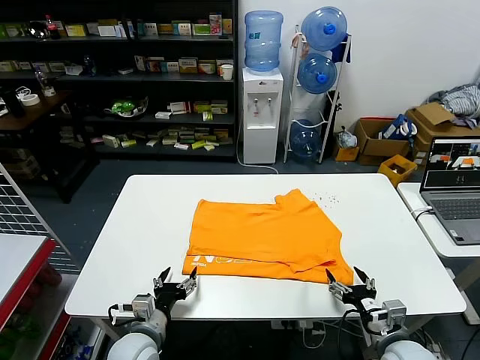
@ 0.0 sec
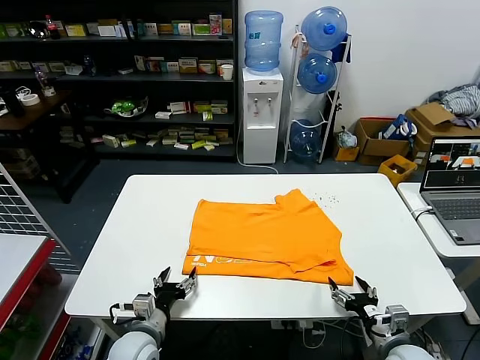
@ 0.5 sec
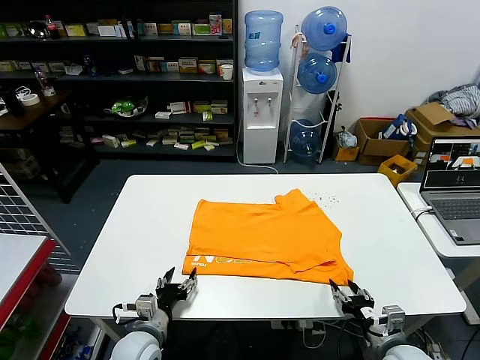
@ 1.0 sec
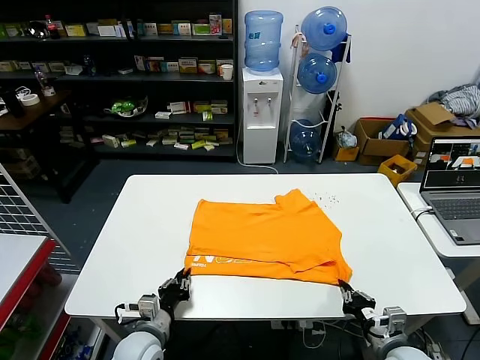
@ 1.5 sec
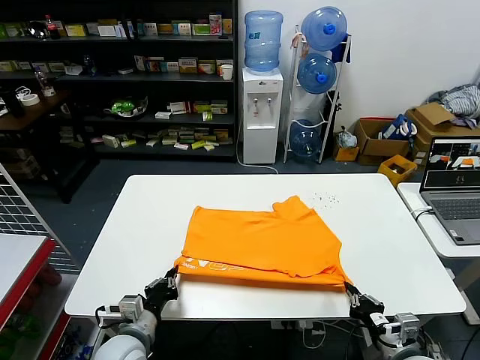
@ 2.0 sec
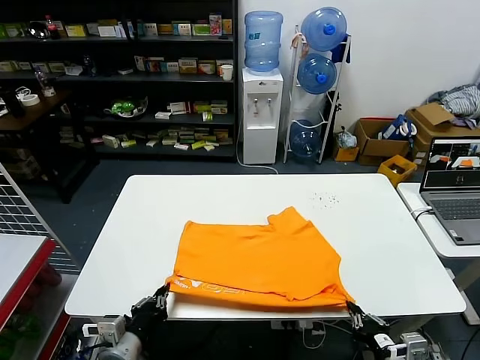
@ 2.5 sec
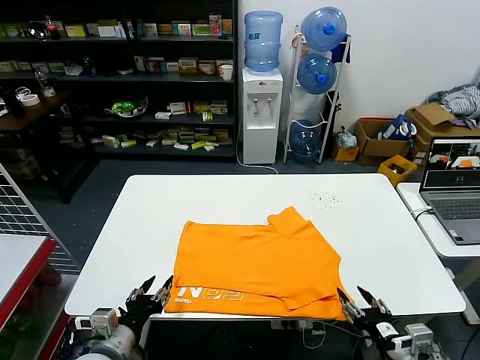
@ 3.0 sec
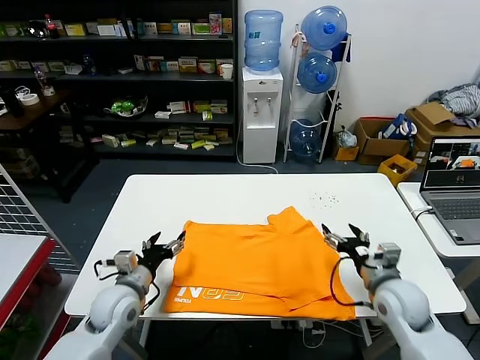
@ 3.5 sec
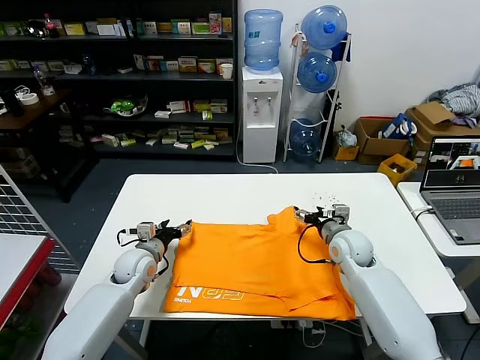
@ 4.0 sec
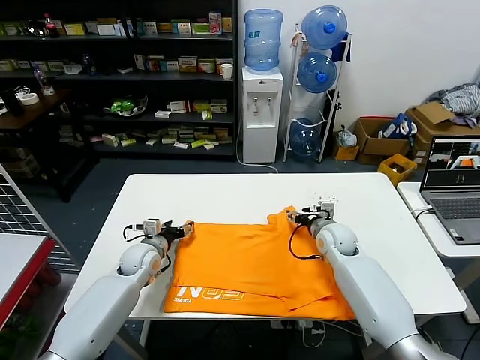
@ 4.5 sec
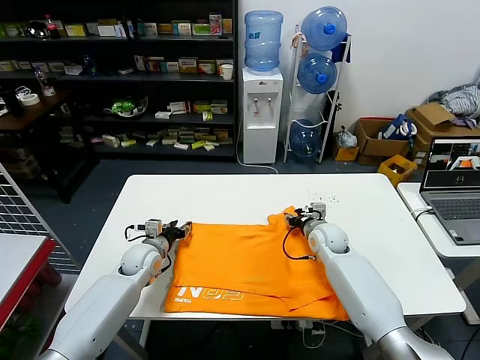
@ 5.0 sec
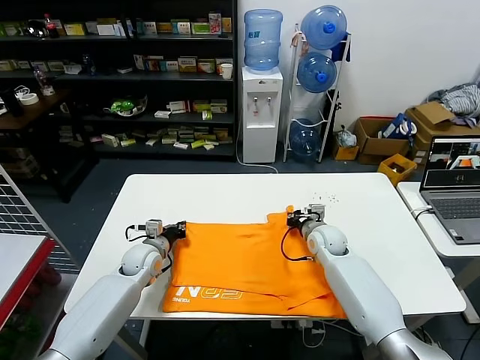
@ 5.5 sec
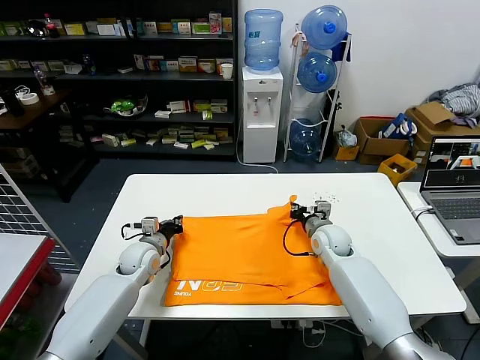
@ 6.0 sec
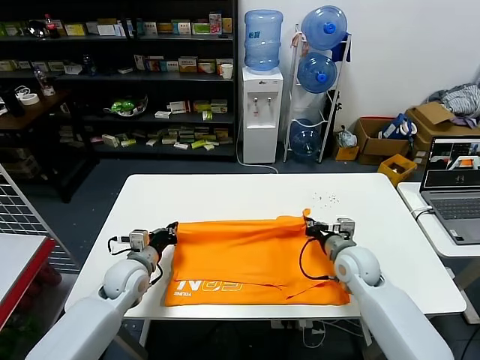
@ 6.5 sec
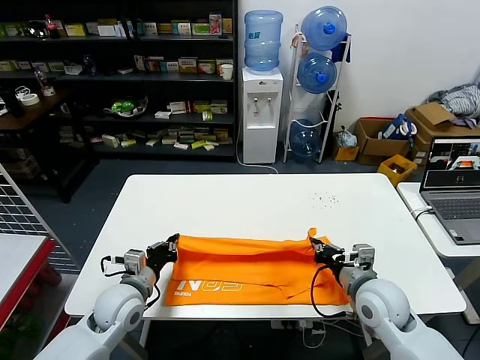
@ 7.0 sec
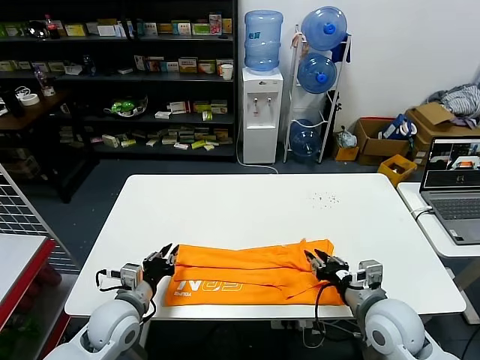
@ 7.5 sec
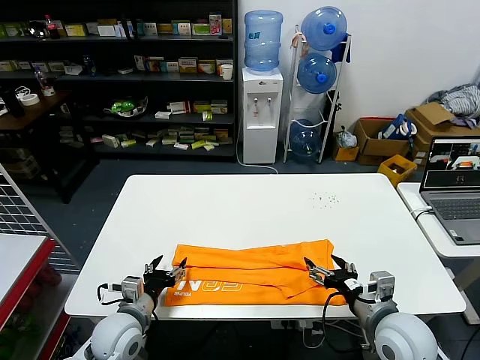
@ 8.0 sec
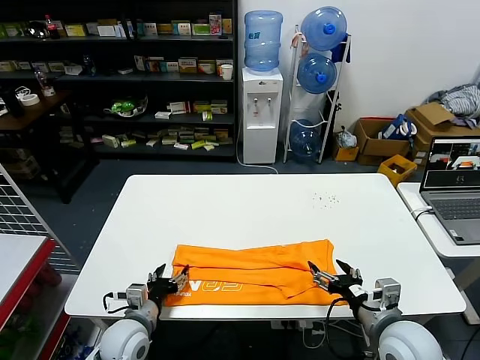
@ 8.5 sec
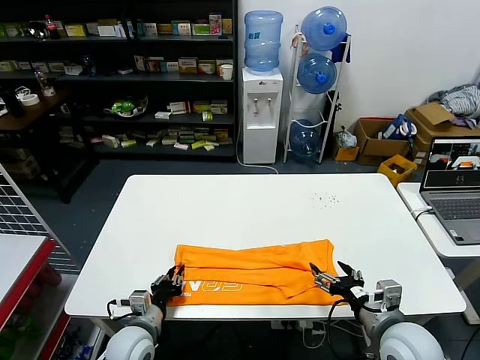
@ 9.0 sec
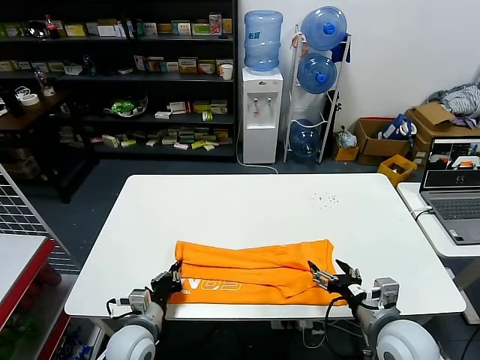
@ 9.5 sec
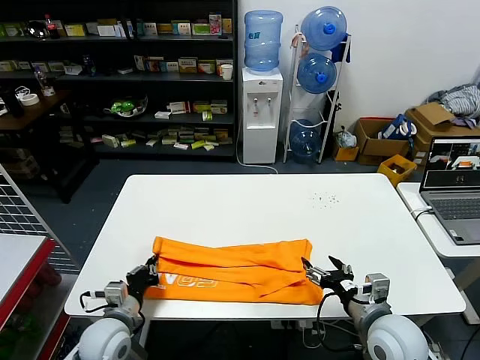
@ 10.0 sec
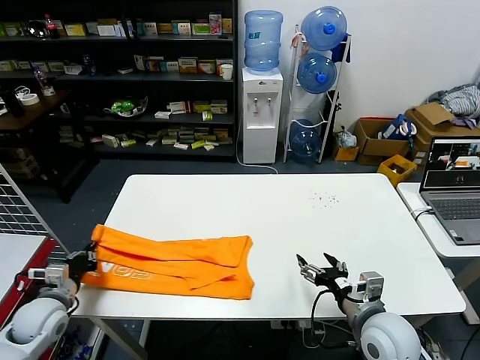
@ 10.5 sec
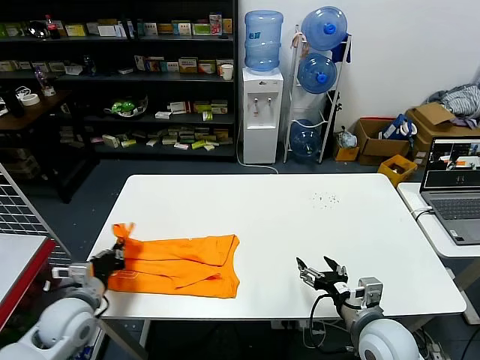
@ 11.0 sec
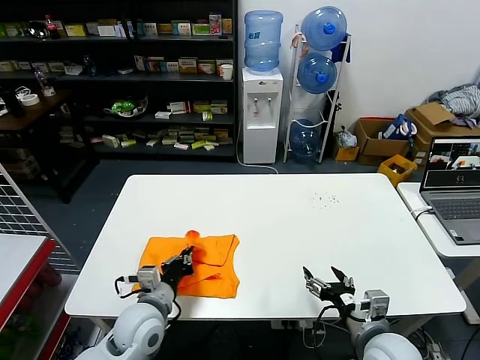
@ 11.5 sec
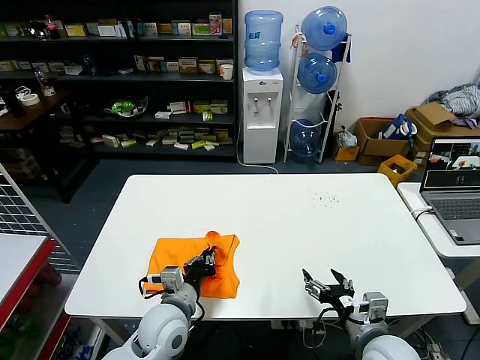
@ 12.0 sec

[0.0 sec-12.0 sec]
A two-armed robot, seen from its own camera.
Task of the whole recording: fold and organize the clothes.
Step, 0.0 sec to 2.5 sec: Drag the clothes downward with both gripper.
Step, 3.0 sec to 5.5 sec: use both grippers simultaneously to clamp the upper edge of the clothing fabric.
Step, 6.0 sec to 7.0 sec: use both grippers to drag the upper edge of the fabric backward and fold it over the lower edge.
Step, 7.5 sec to 9.0 sec: use the left gripper to clamp the left edge of the fabric.
0.0 sec to 2.0 sec: The left gripper closes its fingers; the right gripper closes up.
2.0 sec to 4.0 sec: Both grippers travel together forward, roughly 25 cm. The left gripper opens up, while the right gripper opens its fingers.
4.0 sec to 6.0 sec: The left gripper closes. The right gripper closes up.
6.0 sec to 8.0 sec: Both grippers move backward, some 20 cm. The right gripper opens, while the left gripper opens.
8.0 sec to 10.0 sec: The left gripper closes its fingers.
10.0 sec to 12.0 sec: The left gripper travels to the right by about 10 cm.

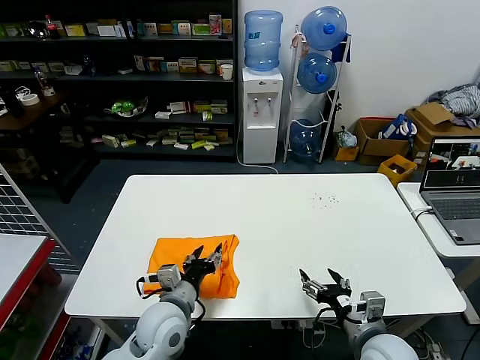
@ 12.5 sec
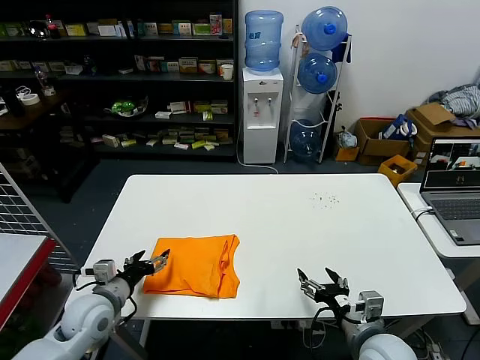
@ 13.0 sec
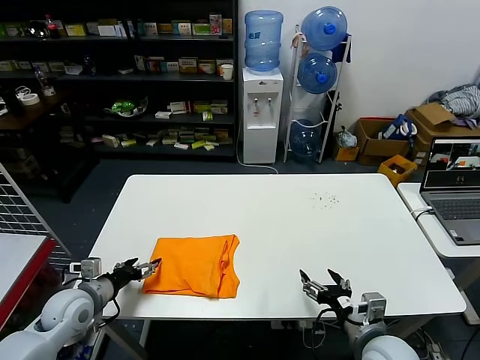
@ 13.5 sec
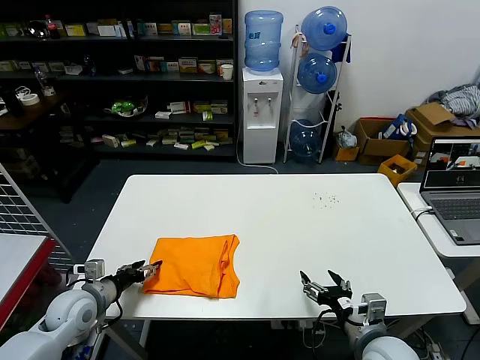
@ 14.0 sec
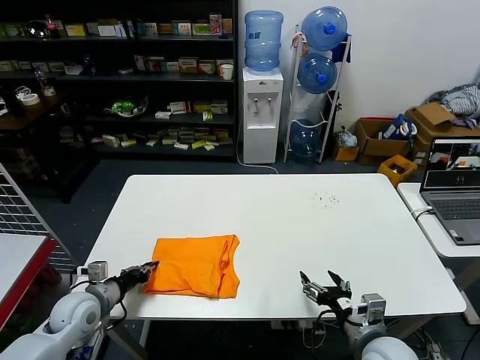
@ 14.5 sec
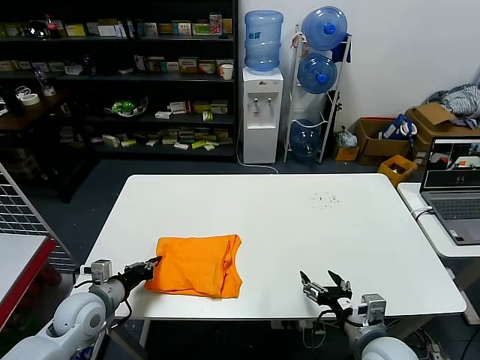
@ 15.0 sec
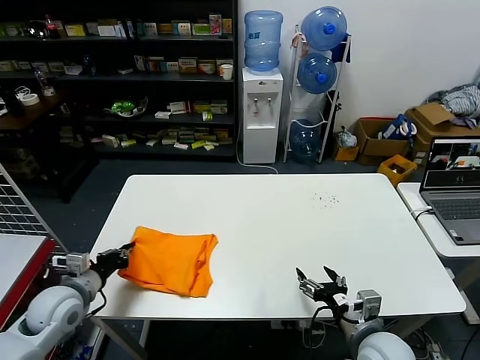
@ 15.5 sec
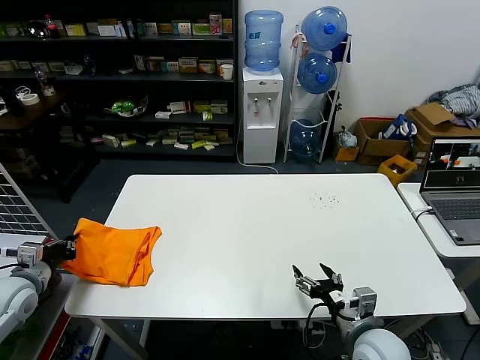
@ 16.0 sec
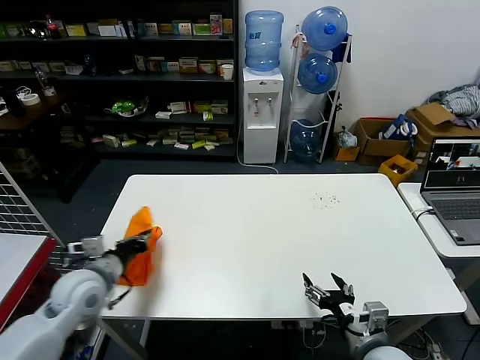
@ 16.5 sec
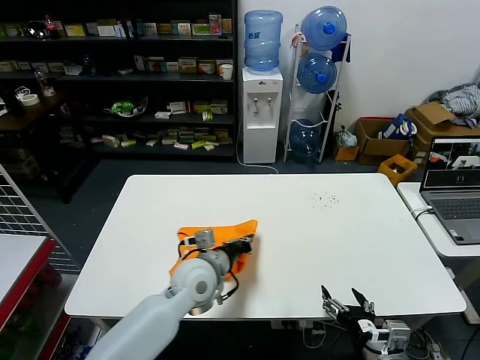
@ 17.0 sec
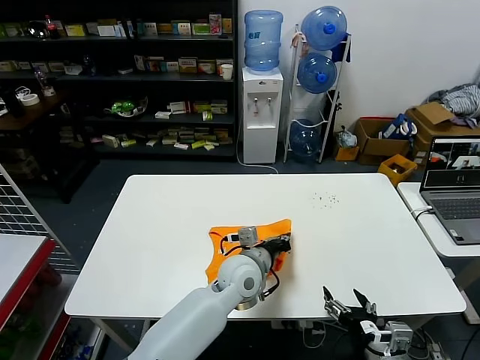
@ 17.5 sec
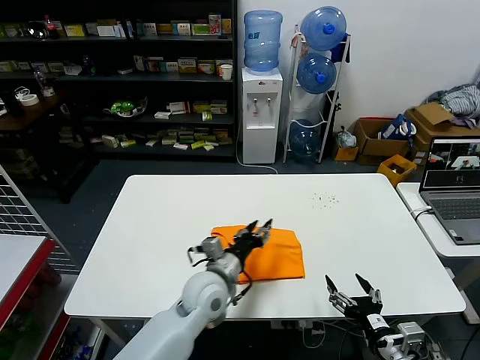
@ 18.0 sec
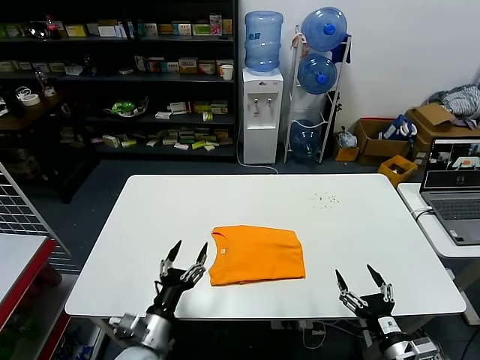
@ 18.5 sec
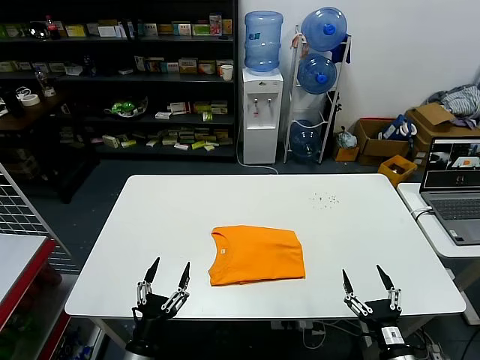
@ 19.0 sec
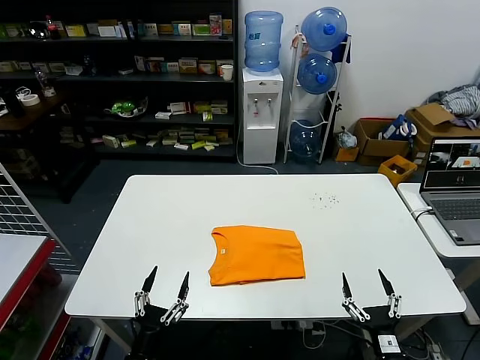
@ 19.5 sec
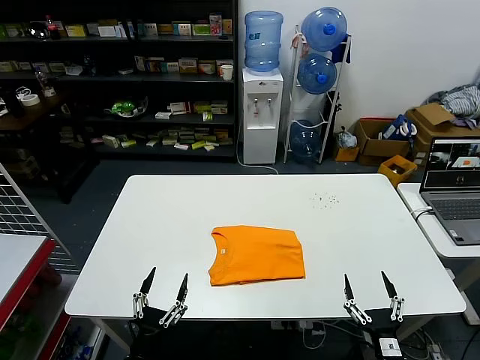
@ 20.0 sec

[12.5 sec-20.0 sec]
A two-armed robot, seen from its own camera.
Task of the whole recording: fold and organize the clothes.
Step, 12.5 sec to 17.5 sec: Flip the folded clothes over with left gripper.
12.5 sec to 14.5 sec: The left gripper travels to the left by approximately 20 cm, and closes.
14.5 sec to 16.5 sec: The left gripper moves upward, some 10 cm, and reaches about 10 cm to the left, then returns.
16.5 sec to 18.0 sec: The left gripper moves to the right, roughly 30 cm, and opens up. The right gripper shifts by about 5 cm.
18.0 sec to 20.0 sec: The right gripper shifts about 5 cm downward; the left gripper travels backward, to the left and downward by some 30 cm, and opens up.

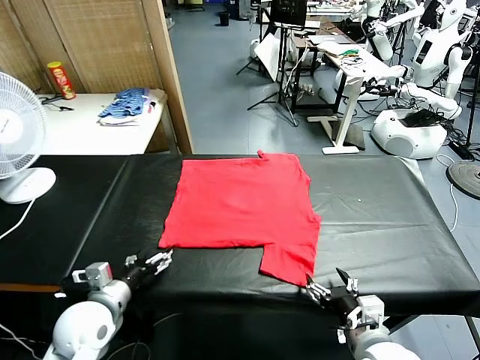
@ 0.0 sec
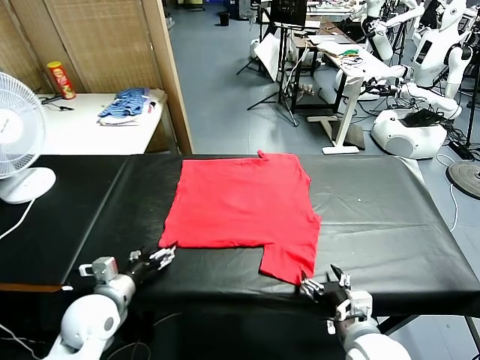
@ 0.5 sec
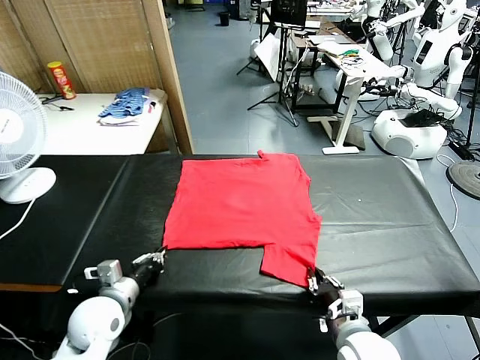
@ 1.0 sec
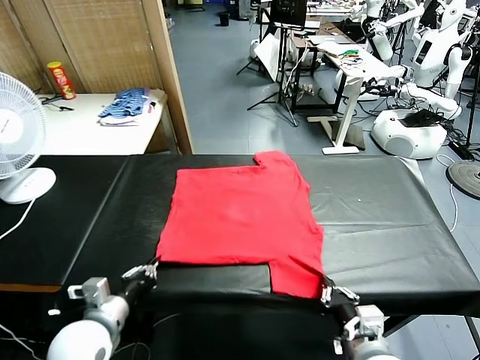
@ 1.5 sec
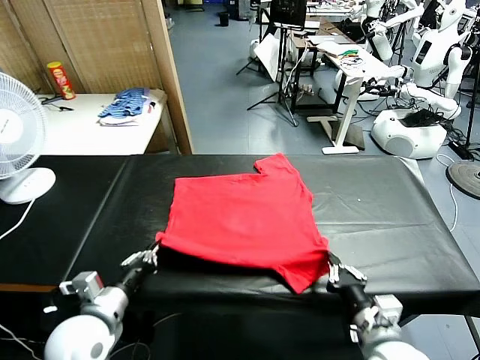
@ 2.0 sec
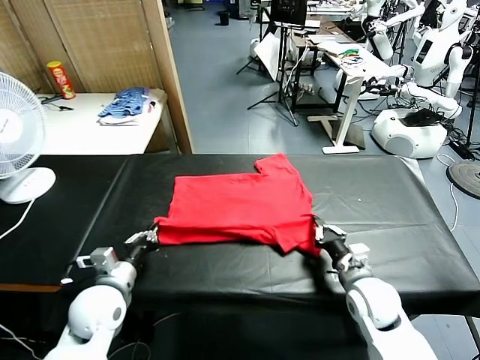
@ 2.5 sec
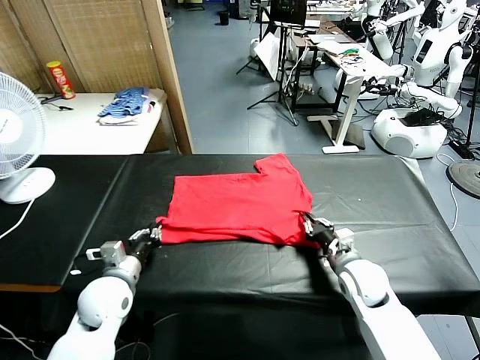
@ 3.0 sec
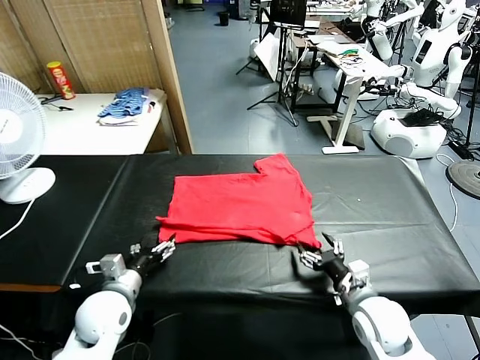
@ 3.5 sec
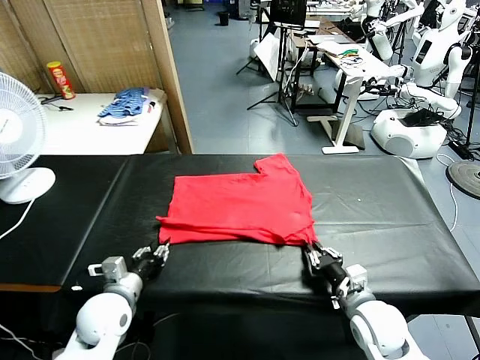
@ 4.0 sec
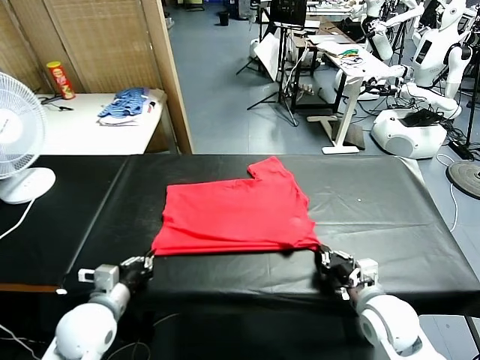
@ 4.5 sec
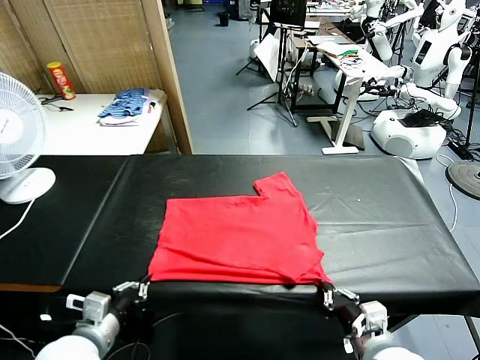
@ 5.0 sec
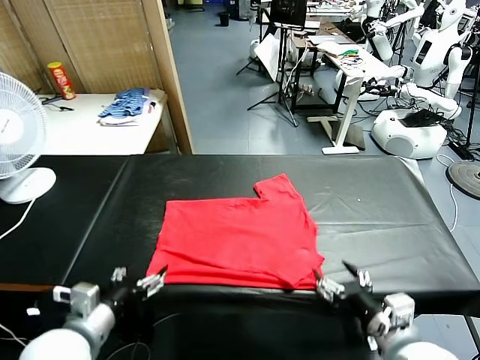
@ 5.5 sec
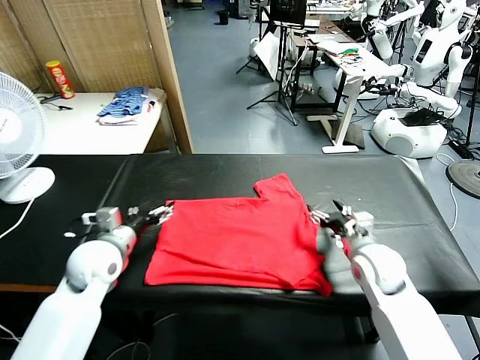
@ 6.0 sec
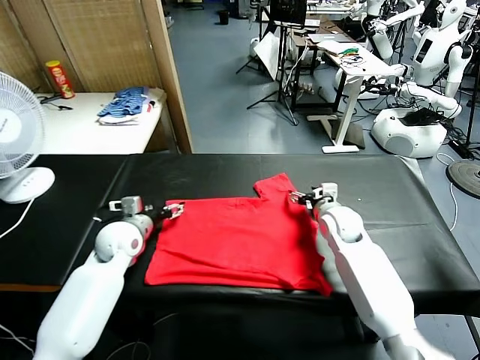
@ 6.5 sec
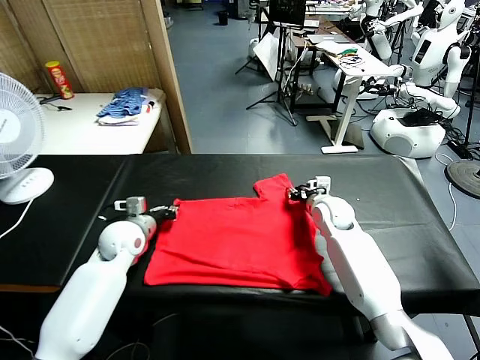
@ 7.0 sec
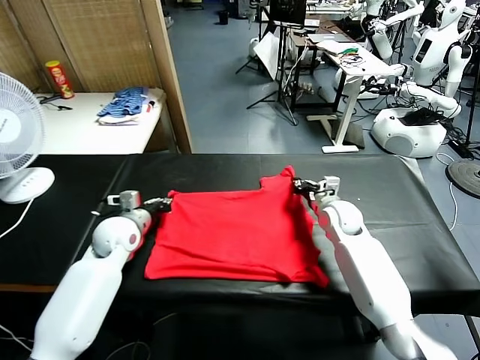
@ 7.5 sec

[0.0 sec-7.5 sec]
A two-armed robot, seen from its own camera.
Task of the whole recording: fold and organize the clothes.
Step, 0.0 sec to 1.0 sec: use both grippers simultaneously to clamp the lower edge of the clothing fabric.
Step, 1.5 sec to 3.0 sec: use both grippers to drag the lower edge of the fabric forward and fold it over the upper edge.
Step, 3.5 sec to 5.0 sec: Drag the clothes downward with both gripper.
Step, 5.5 sec to 7.0 sec: use both grippers simultaneously to clamp the upper edge of the clothing fabric.
2.0 sec to 4.0 sec: The left gripper travels downward by roughly 5 cm, and opens, then closes once more, while the right gripper reaches some 10 cm forward, then returns, and opens and closes again.
4.0 sec to 5.5 sec: The left gripper moves upward and backward, some 10 cm, and opens its fingers. Meanwhile the right gripper heads upward, covering roughly 5 cm, moves some 10 cm backward and comes back, and opens its fingers.
5.5 sec to 7.5 sec: The two grippers go about 25 cm forward. The right gripper closes up; the left gripper closes its fingers.
